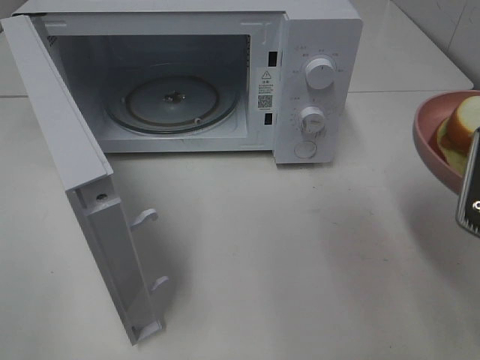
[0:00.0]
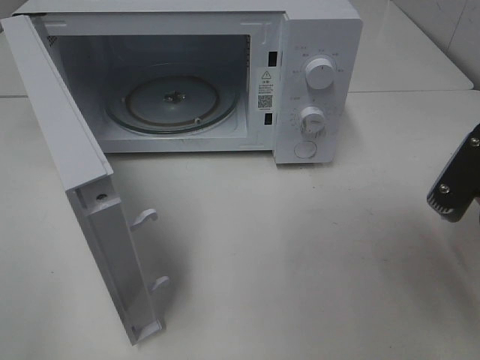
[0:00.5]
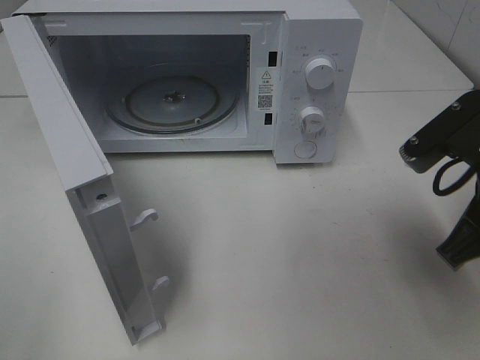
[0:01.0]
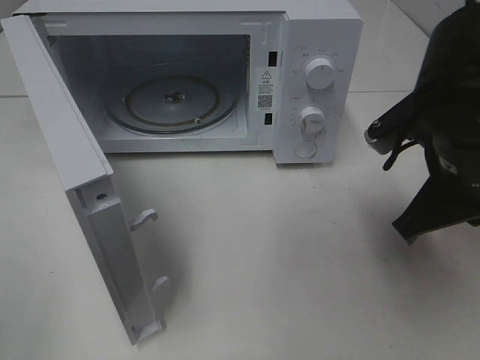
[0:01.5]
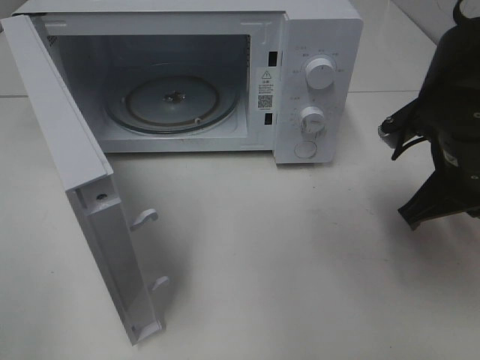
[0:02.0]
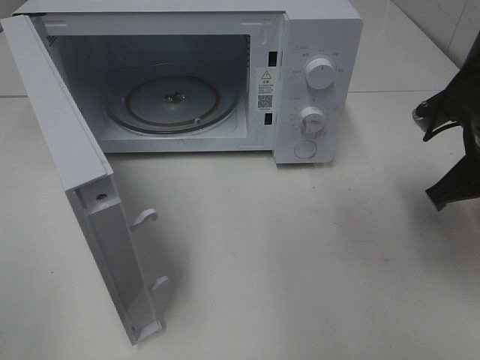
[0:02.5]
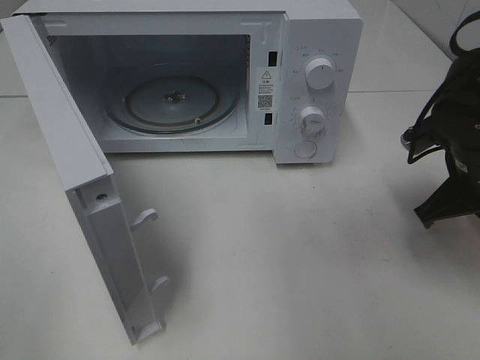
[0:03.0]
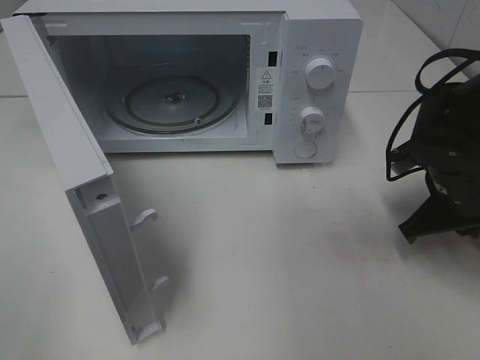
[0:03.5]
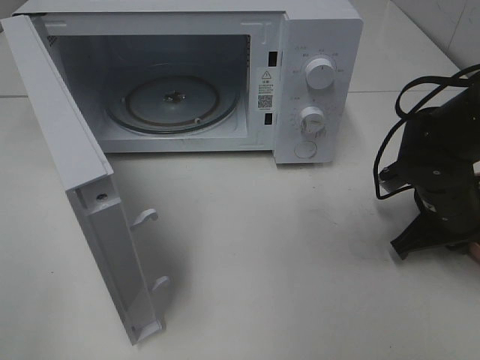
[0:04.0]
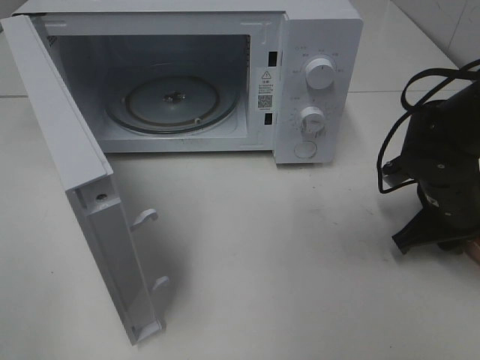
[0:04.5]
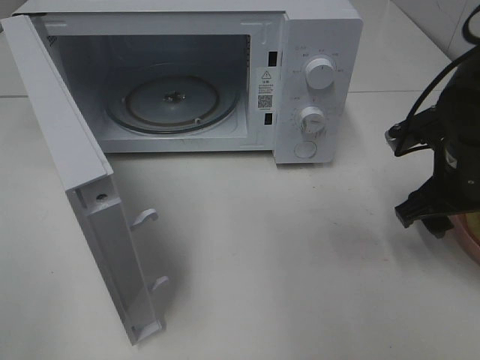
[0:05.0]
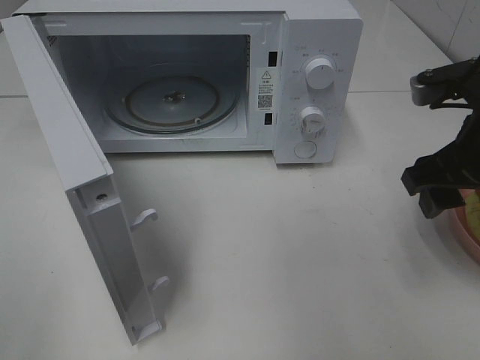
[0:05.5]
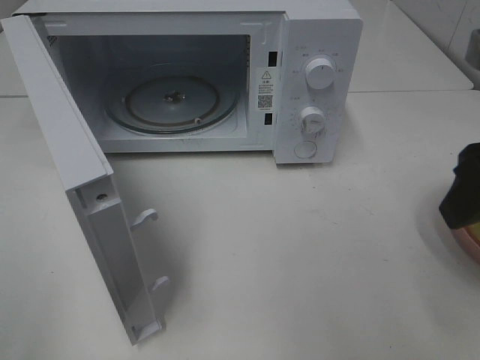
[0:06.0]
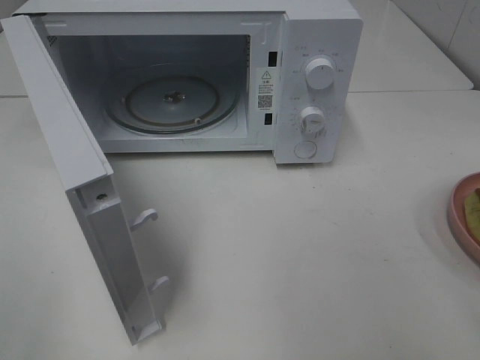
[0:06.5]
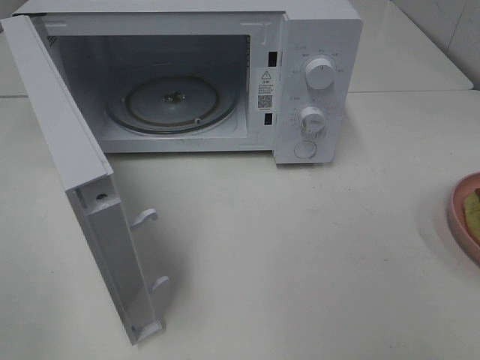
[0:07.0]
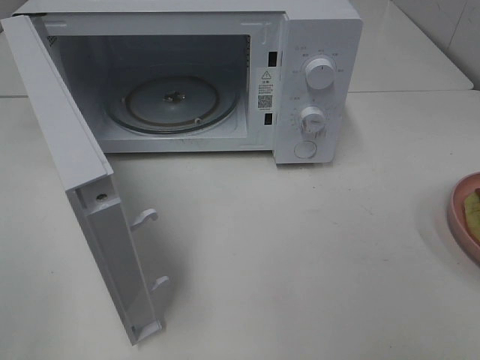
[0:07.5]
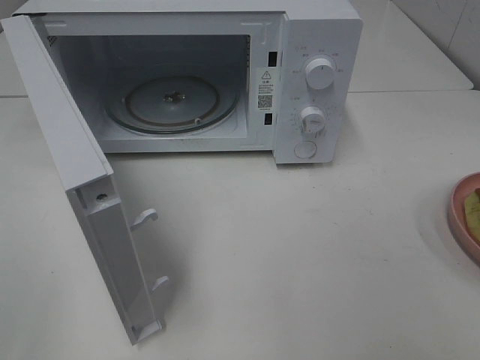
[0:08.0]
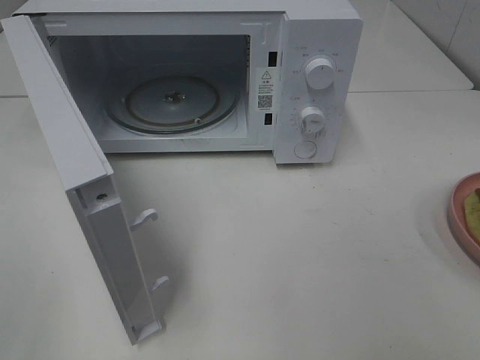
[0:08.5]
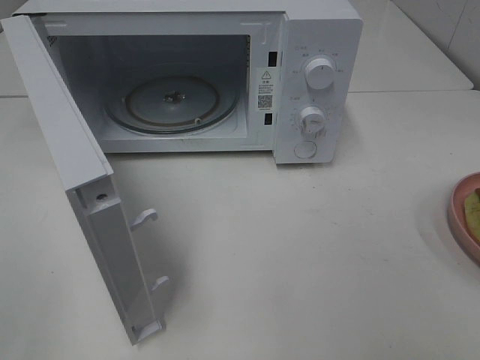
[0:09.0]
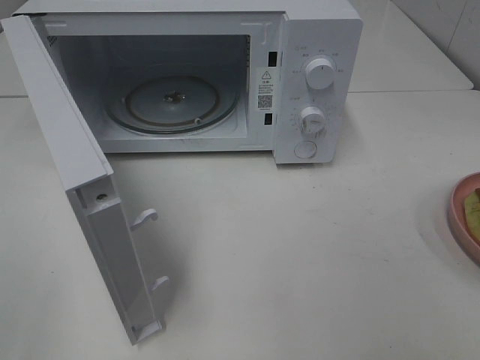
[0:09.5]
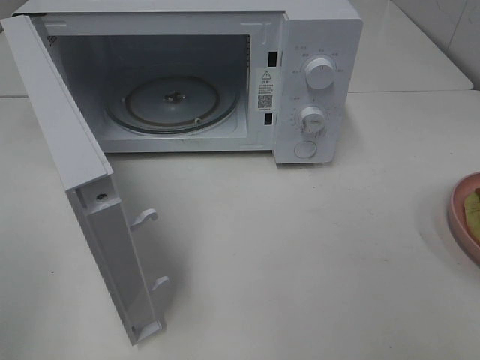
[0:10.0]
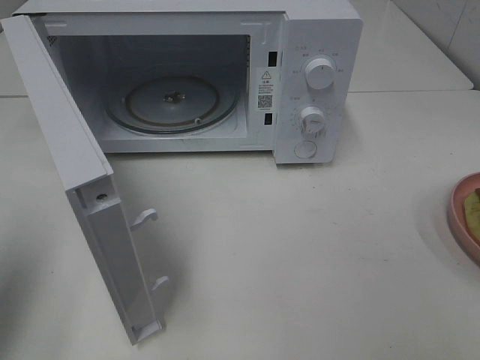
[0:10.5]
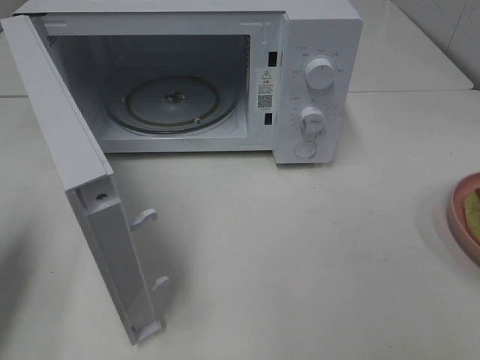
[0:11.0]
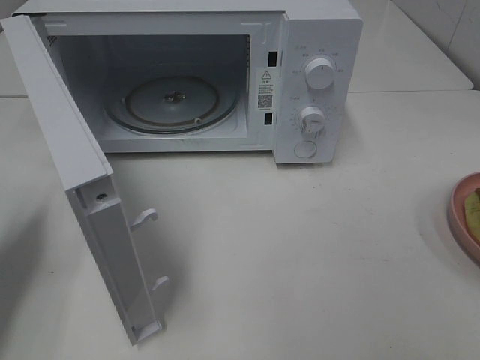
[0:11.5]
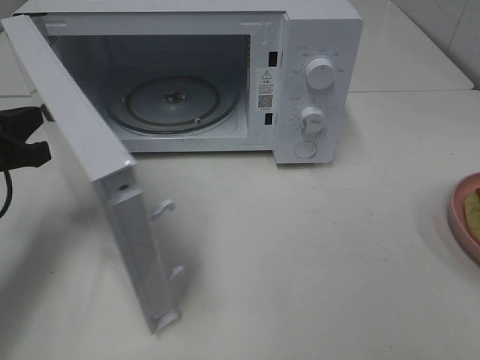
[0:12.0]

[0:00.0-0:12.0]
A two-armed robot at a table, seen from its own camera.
Task of the whole recording: Heat Sandwich.
Step, 0:00.0 to 0:05.5: Right hand: place the plate on the table.
0:00.0 to 0:02.0: The right gripper goes approximately 10 cm forward and downward.
0:02.0 to 0:04.0: The right gripper shifts some 10 cm downward.
0:04.0 to 0:06.0: The right gripper moves upward and backward, about 25 cm, and opens up.
0:06.0 to 0:08.0: The right gripper goes some 20 cm backward.
0:10.0 to 0:12.0: The left gripper goes about 25 cm forward and downward, and closes.

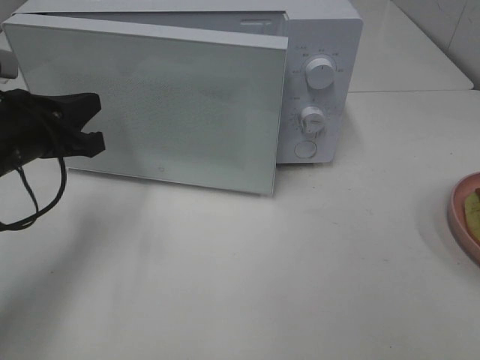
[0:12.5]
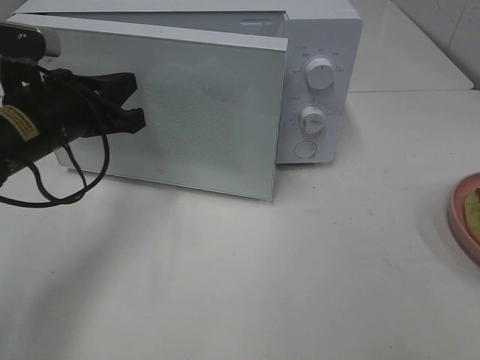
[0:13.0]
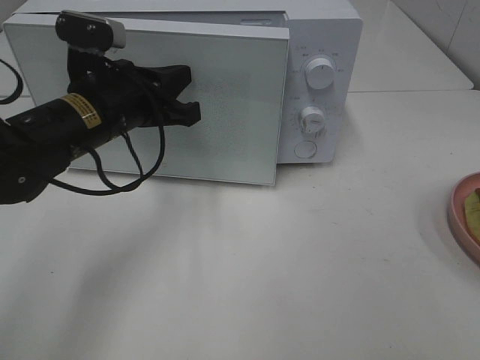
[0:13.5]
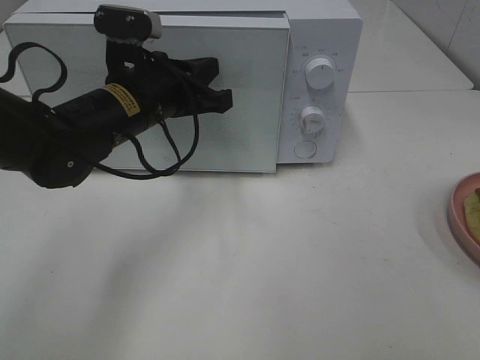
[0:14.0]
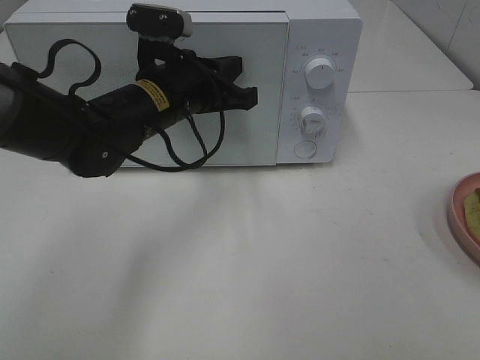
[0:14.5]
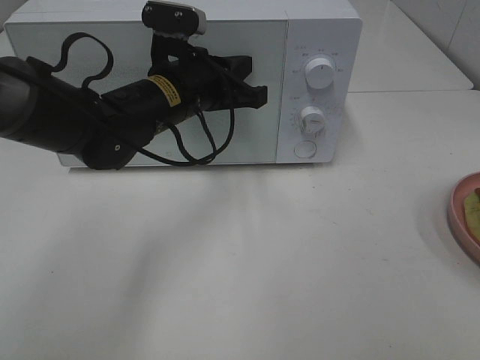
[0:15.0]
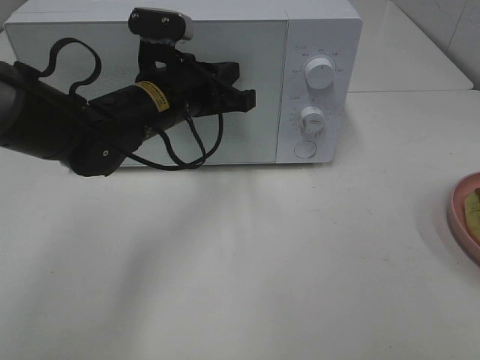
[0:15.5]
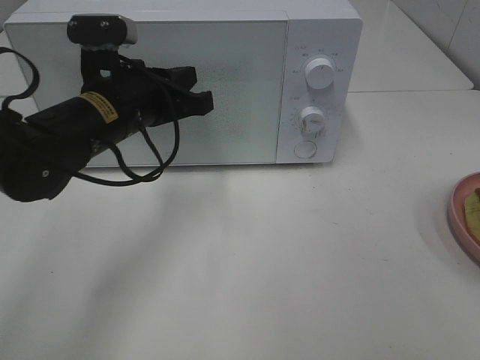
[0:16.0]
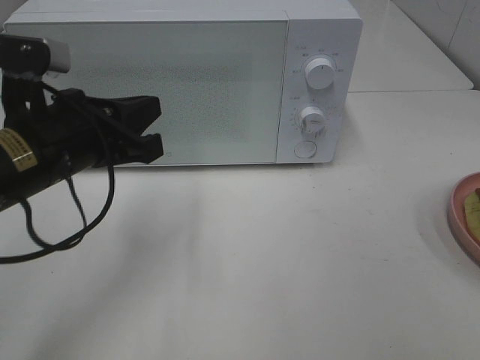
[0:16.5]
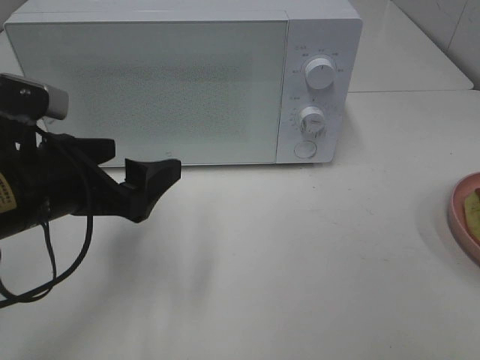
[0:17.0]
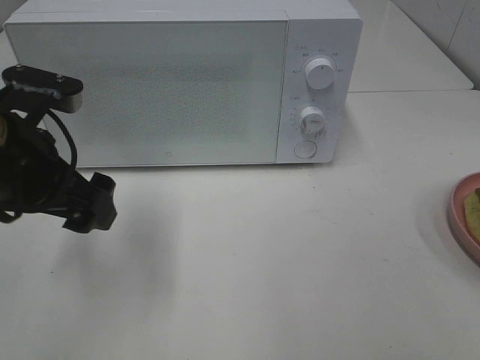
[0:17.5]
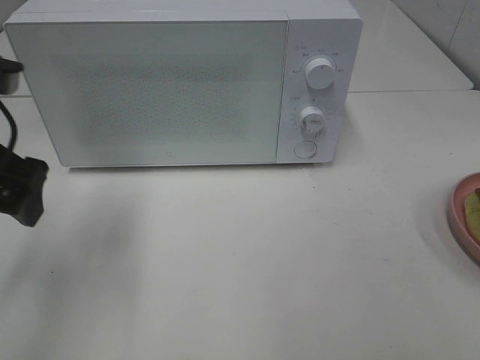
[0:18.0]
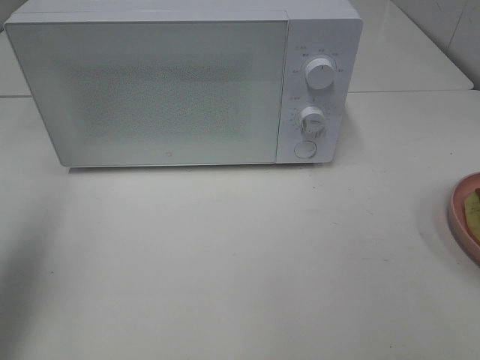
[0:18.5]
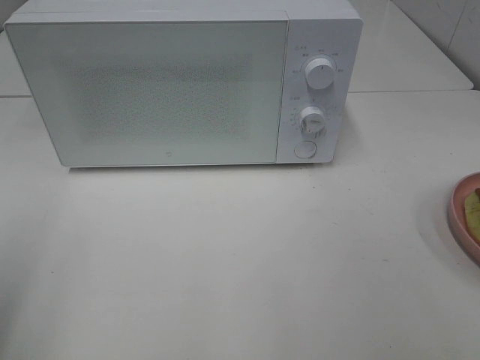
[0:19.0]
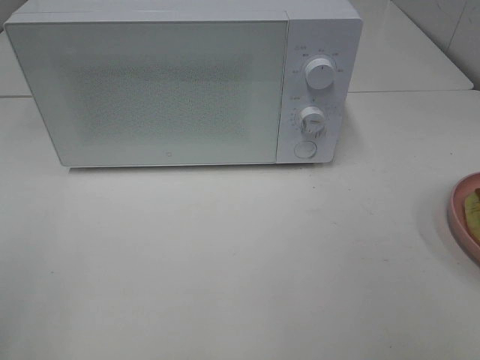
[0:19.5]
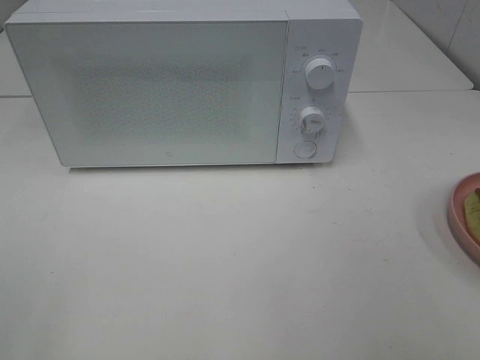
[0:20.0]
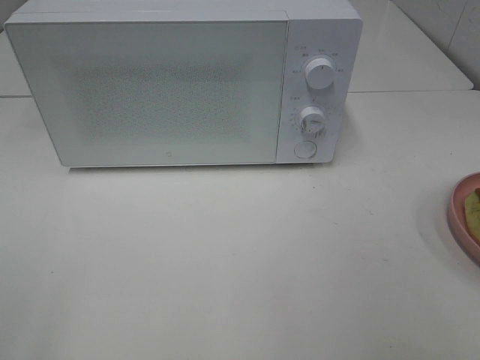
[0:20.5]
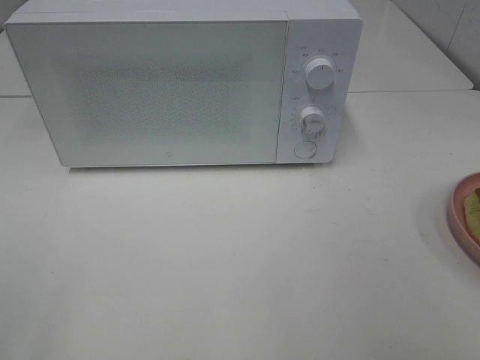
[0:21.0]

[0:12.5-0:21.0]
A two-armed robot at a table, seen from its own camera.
Task of the whole recording: Heat Sandwich.
Step, 0:12.5 to 0:16.0: Left hand: close the microwave door.
0:12.5 to 0:14.5: The left gripper is displaced to the right and forward by about 15 cm.
0:14.5 to 0:16.5: The left gripper goes approximately 15 cm backward and to the left.
0:16.5 to 0:19.0: The left gripper shifts some 25 cm to the left, backward and upward, and opens.

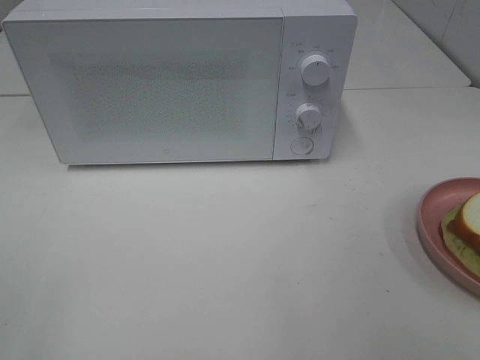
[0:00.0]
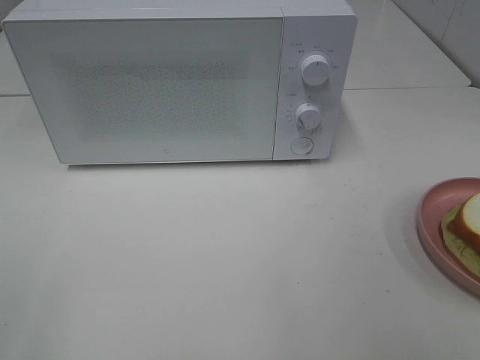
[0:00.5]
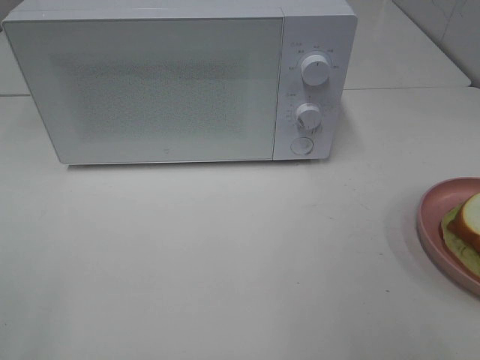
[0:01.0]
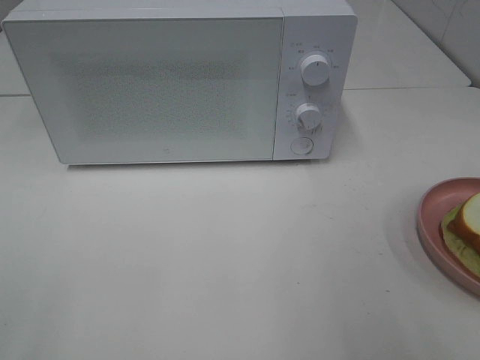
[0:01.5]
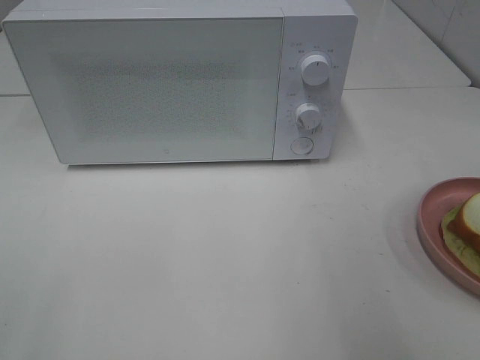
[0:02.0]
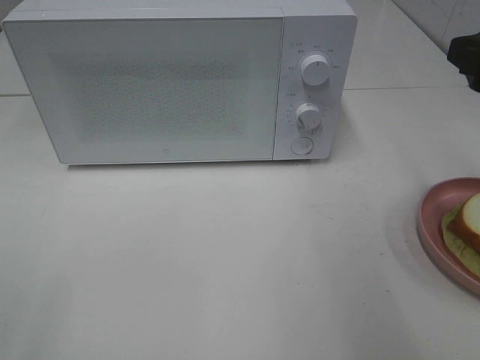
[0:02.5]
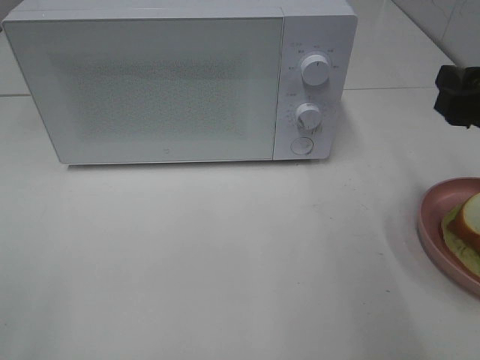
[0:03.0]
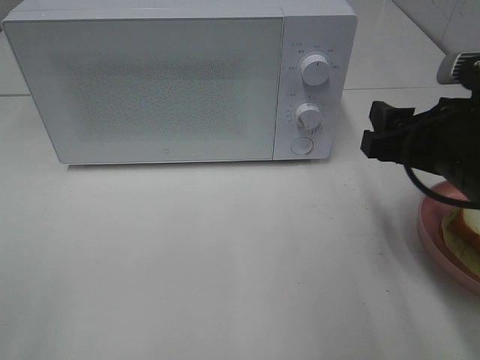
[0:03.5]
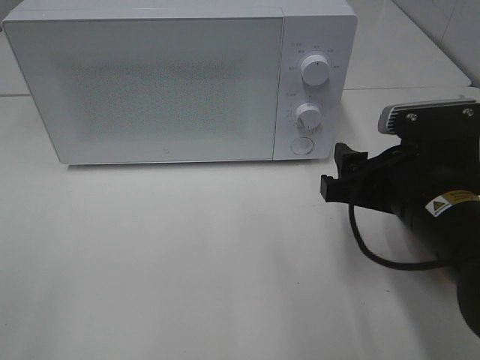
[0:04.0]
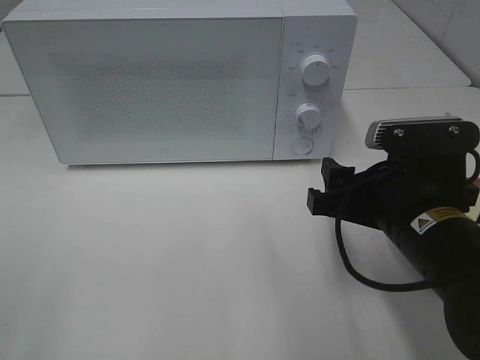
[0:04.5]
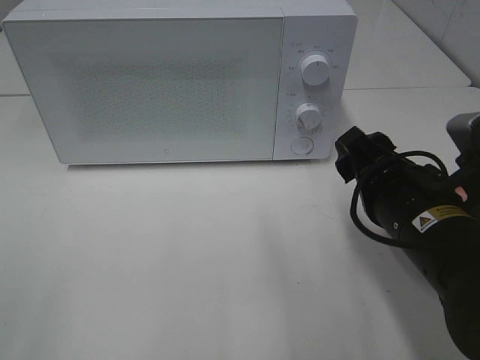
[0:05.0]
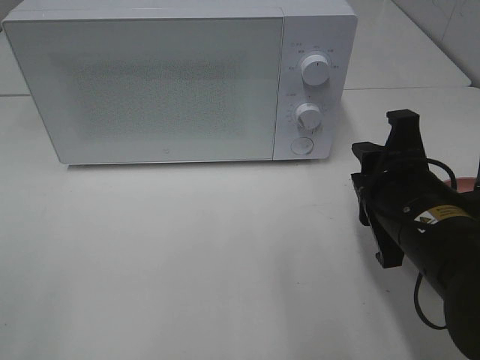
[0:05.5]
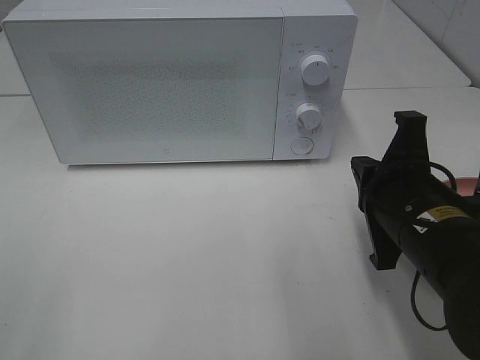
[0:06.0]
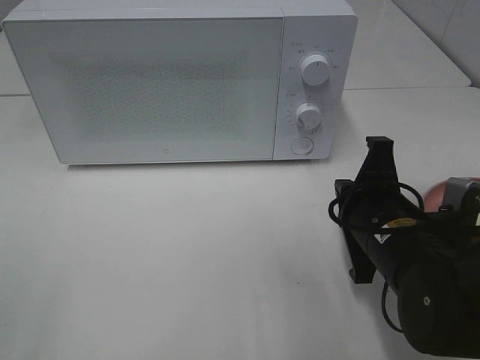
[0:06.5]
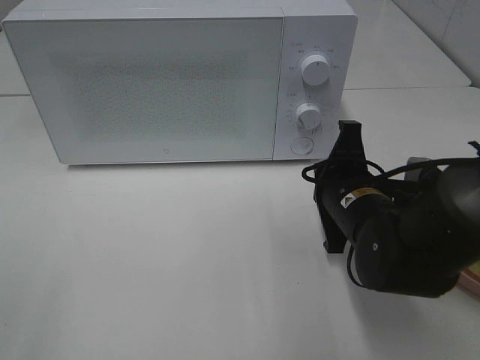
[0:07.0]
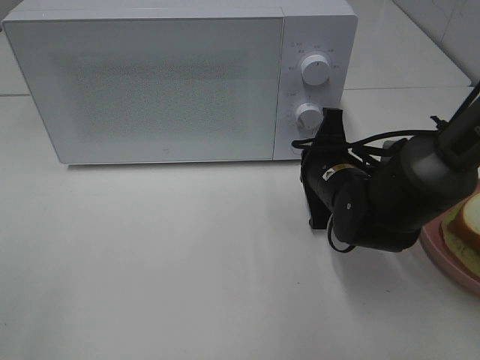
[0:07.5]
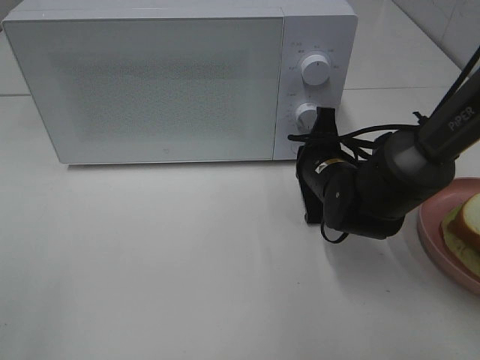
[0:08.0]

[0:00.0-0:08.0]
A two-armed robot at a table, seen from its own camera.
Task of the whole recording: Heat Sandwich.
0:02.0 to 0:04.0: The right gripper is displaced downward and to the left by approximately 15 cm.
0:04.0 to 0:06.0: The right gripper closes.
0:06.0 to 0:08.0: The right gripper travels forward and downward by approximately 15 cm.
